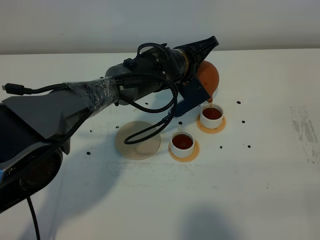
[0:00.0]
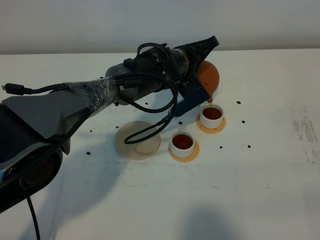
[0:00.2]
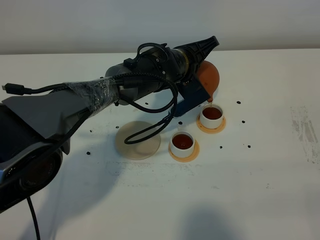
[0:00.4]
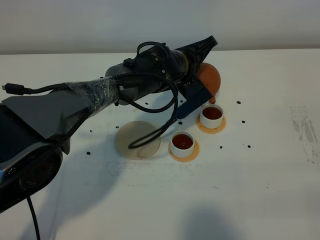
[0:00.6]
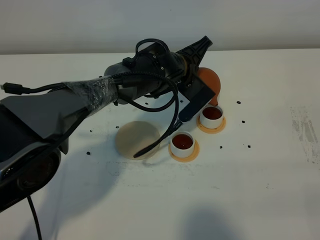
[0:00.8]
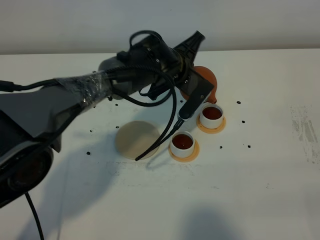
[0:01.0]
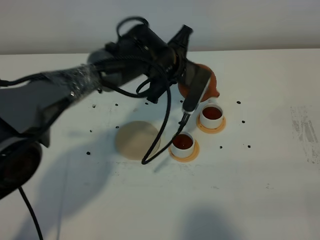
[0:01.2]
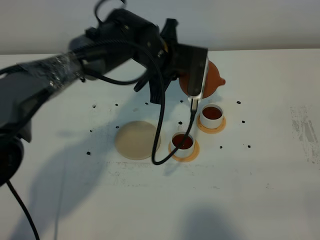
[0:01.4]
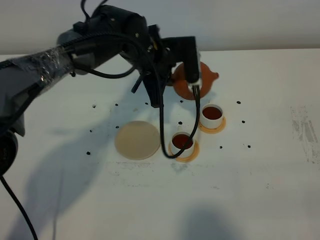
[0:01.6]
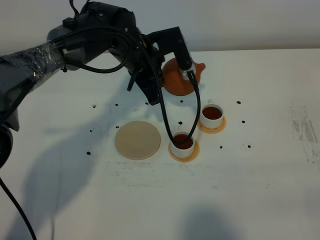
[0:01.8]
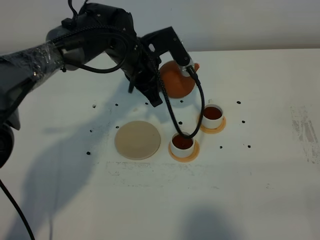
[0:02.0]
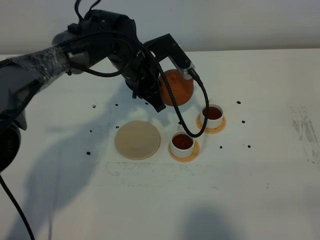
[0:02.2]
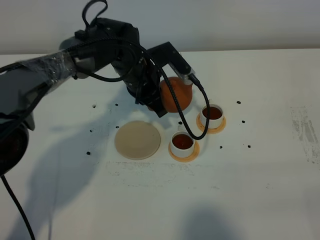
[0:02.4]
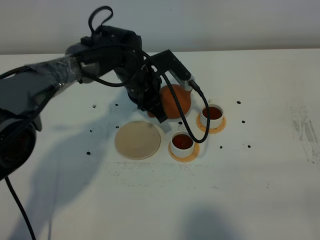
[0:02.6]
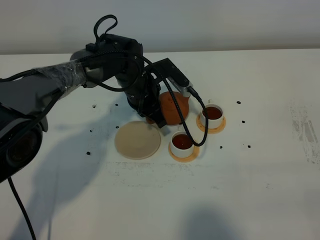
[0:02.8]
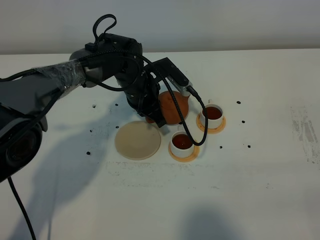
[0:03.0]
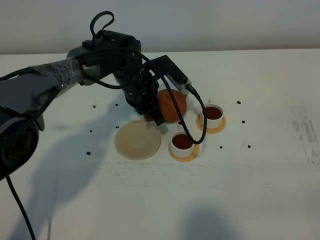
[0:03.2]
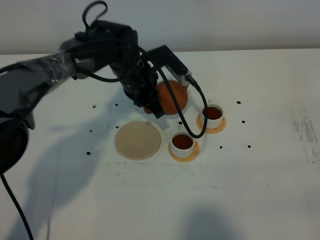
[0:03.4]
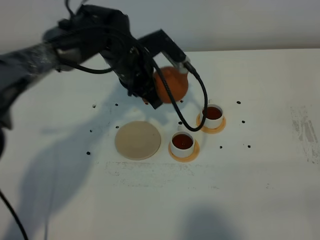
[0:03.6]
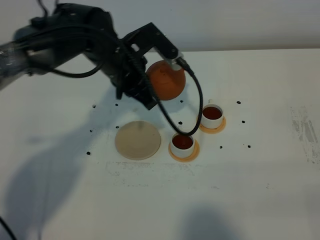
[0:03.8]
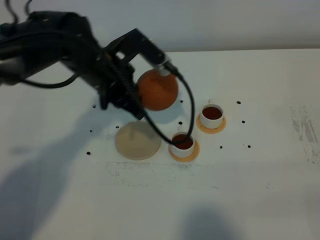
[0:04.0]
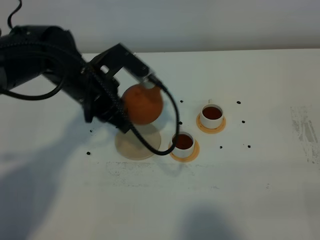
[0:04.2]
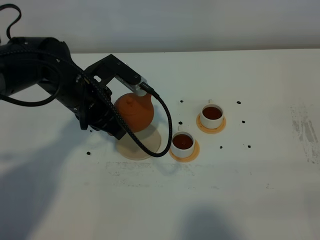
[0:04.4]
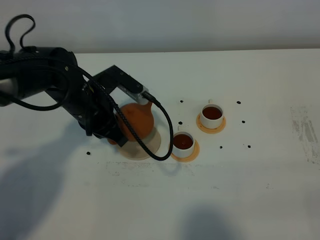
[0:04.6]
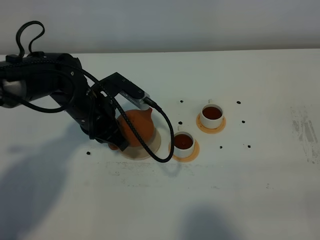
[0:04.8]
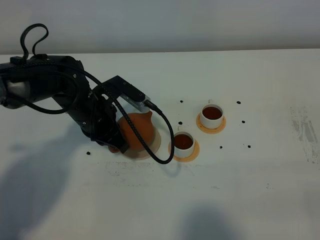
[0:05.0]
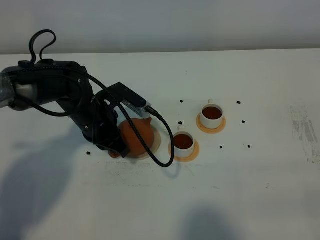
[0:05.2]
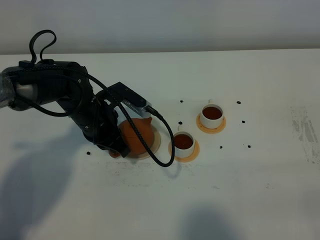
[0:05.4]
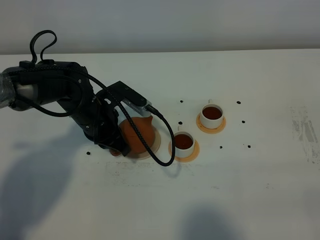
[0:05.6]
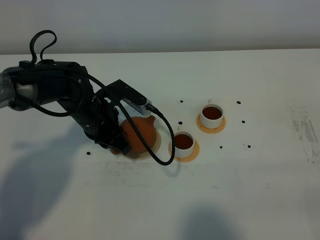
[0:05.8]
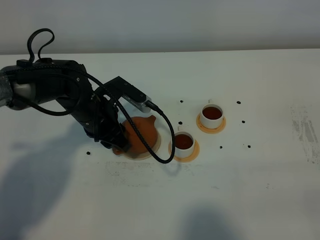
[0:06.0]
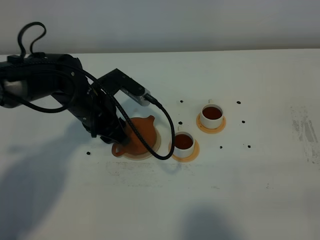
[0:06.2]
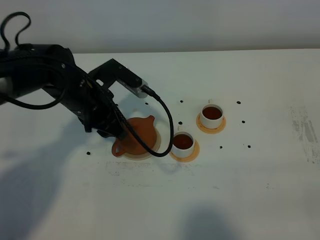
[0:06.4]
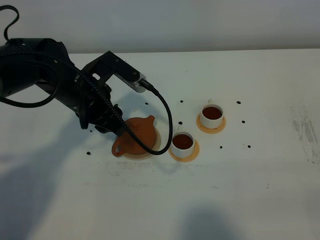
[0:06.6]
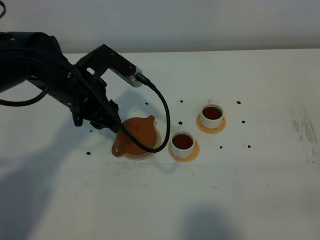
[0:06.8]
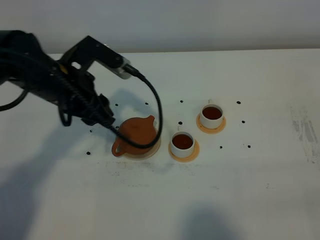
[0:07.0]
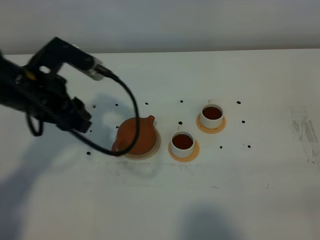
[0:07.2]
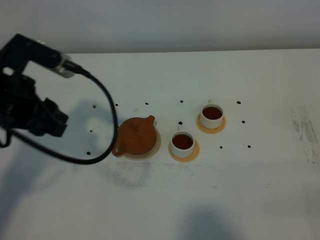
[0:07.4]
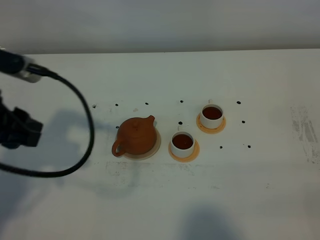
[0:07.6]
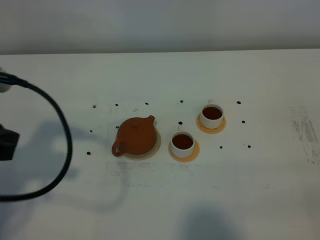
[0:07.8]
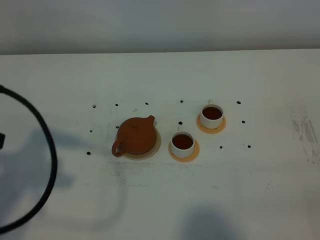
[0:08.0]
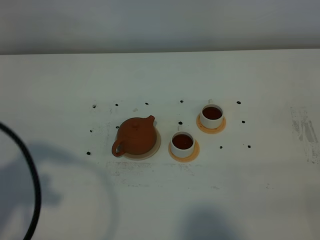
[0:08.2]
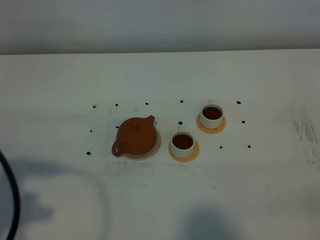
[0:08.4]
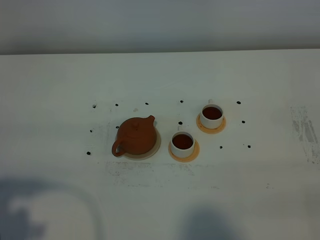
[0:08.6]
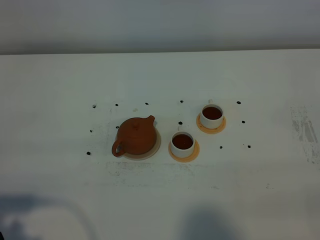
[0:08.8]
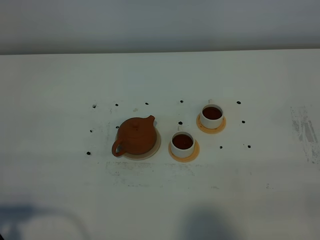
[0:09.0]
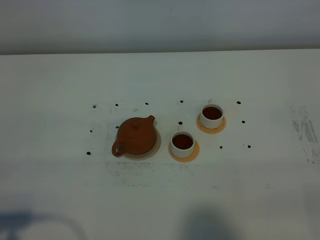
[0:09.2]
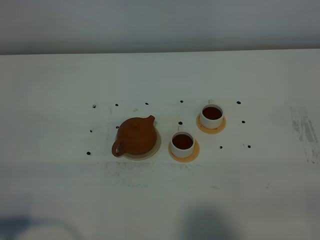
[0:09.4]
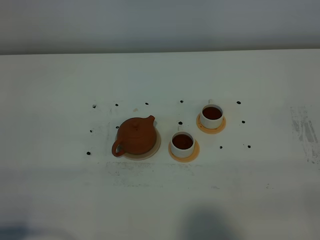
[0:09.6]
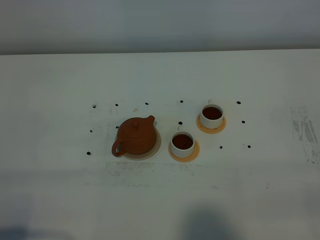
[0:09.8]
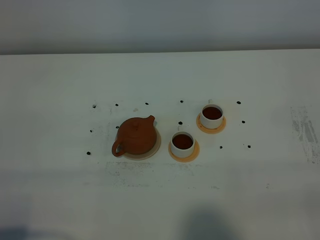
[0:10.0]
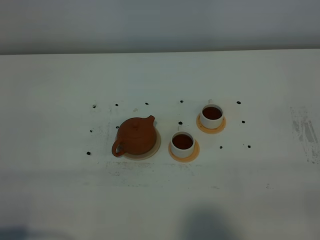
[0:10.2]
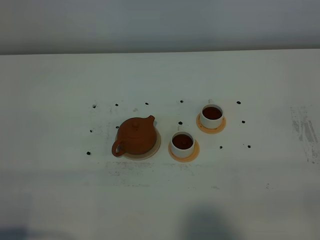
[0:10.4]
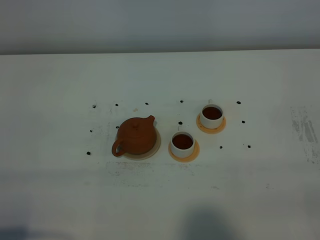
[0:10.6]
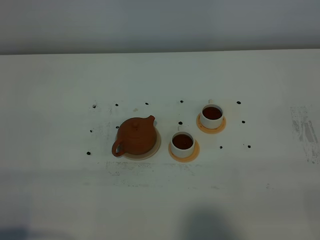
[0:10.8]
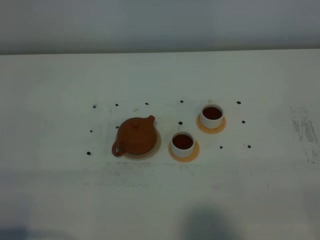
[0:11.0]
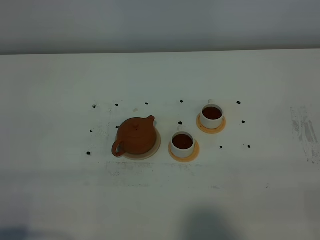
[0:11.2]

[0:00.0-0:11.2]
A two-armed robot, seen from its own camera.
Task of the whole recording: grasp the brown teapot and pour the tea into the two white teacups one by one, put the brown teapot back in its original place.
0:00.0 to 0:01.6: The left gripper shifts about 5 cm to the left.
0:01.6 to 0:03.2: The left gripper goes some 5 cm downward.
0:03.2 to 0:04.8: The left gripper goes some 10 cm backward and to the left, and goes upward and returns, roughly 10 cm each way.
0:04.8 to 0:06.4: The left gripper opens.
0:06.4 to 0:08.0: The left gripper travels backward, upward and to the left by some 25 cm.
0:08.0 to 0:09.6: The left gripper moves backward and downward, some 15 cm.
0:09.6 to 0:11.2: Neither gripper changes place.

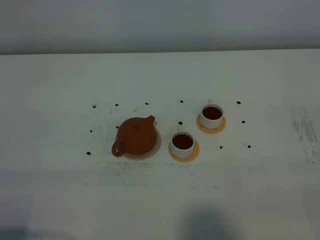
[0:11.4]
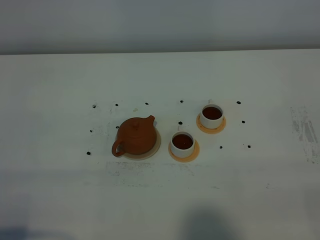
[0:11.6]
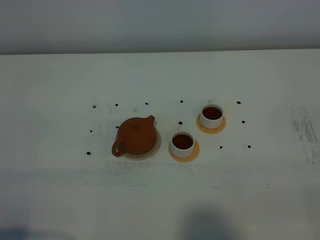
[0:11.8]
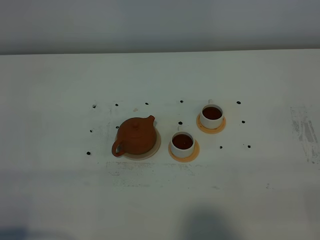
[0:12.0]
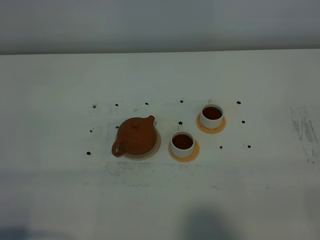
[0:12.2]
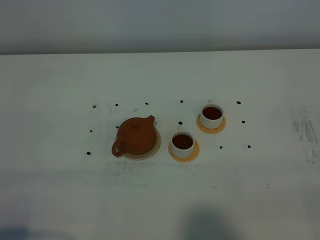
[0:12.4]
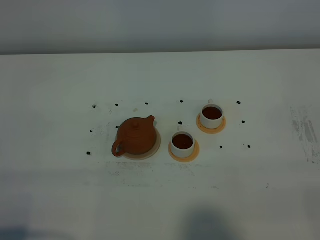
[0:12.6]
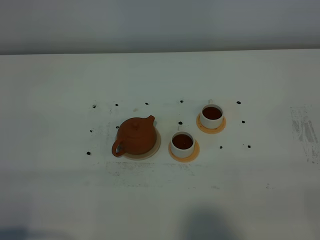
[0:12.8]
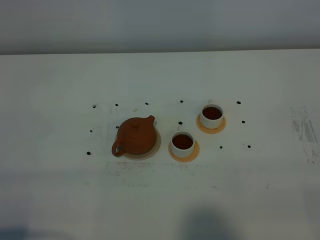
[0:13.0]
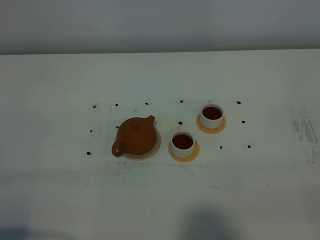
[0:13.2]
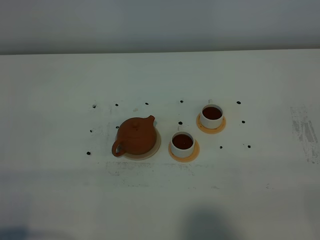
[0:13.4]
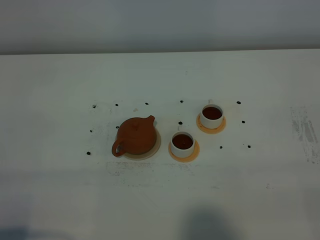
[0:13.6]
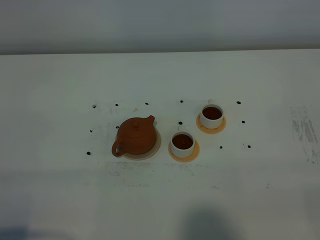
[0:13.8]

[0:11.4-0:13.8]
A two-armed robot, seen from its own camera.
Task of the whole recording: grasp the brown teapot and pour the tea into the two white teacups one by one, put the brown teapot back in its original place.
0:11.4 to 0:13.8: Both grippers stay about where they are.

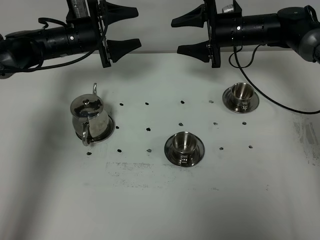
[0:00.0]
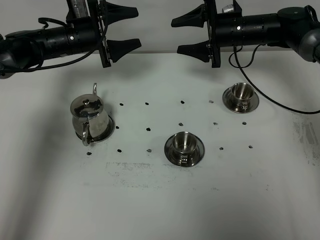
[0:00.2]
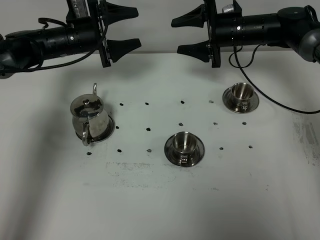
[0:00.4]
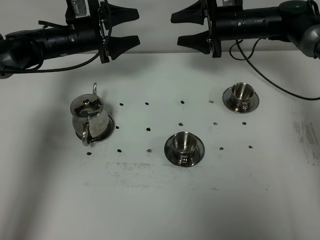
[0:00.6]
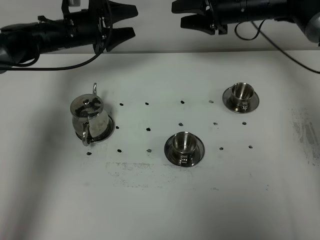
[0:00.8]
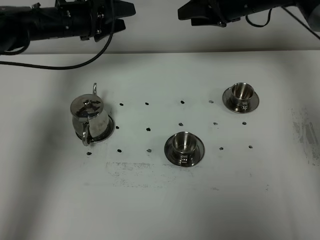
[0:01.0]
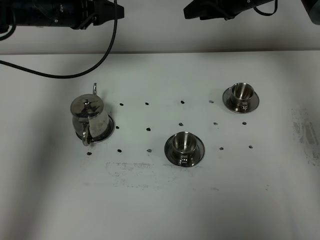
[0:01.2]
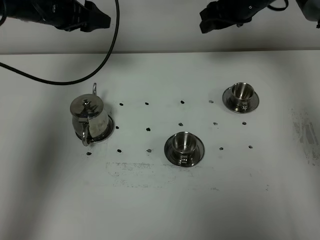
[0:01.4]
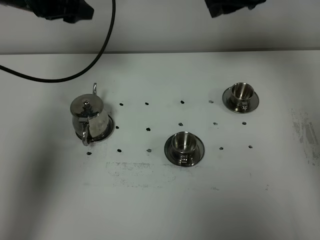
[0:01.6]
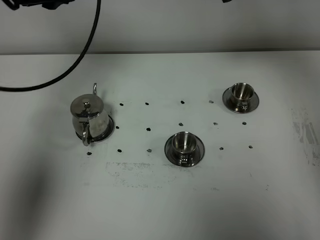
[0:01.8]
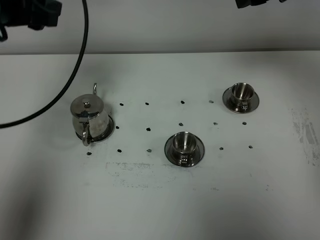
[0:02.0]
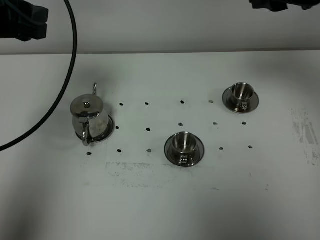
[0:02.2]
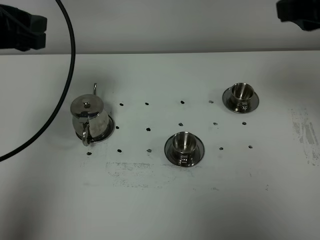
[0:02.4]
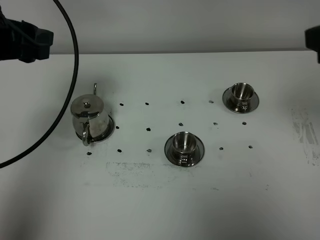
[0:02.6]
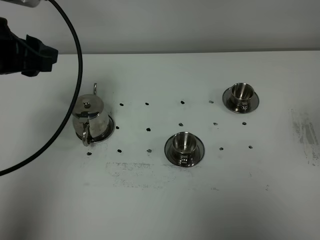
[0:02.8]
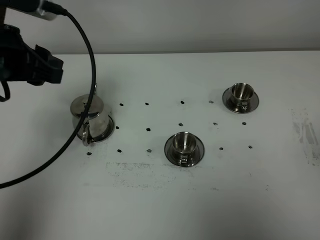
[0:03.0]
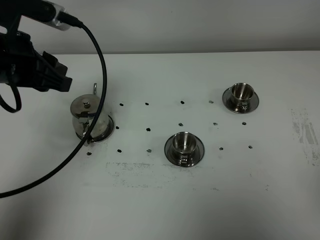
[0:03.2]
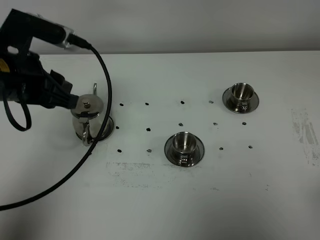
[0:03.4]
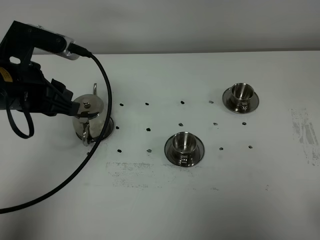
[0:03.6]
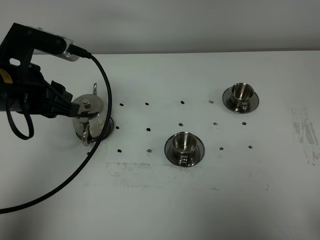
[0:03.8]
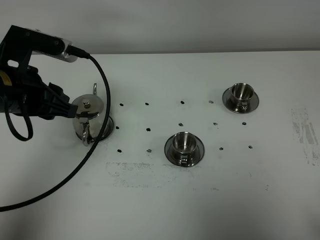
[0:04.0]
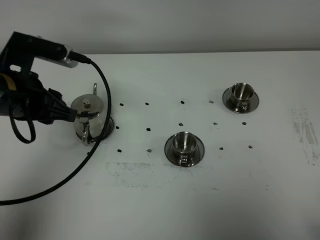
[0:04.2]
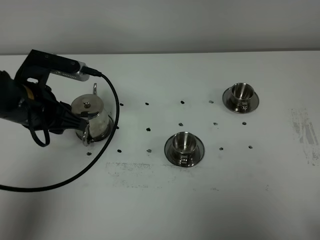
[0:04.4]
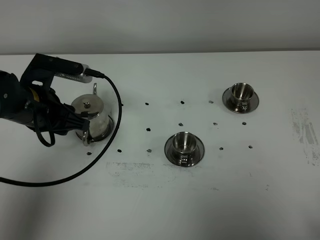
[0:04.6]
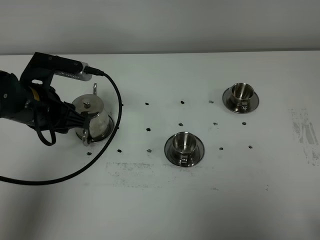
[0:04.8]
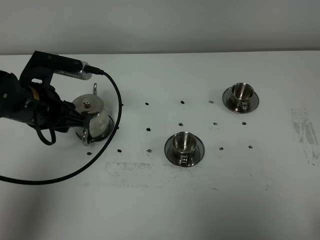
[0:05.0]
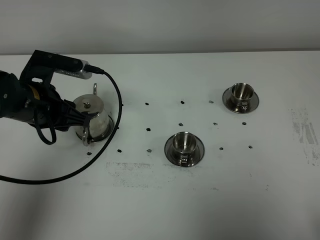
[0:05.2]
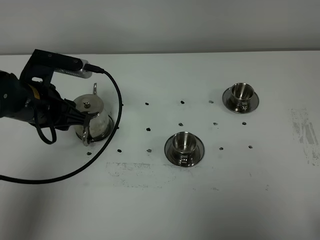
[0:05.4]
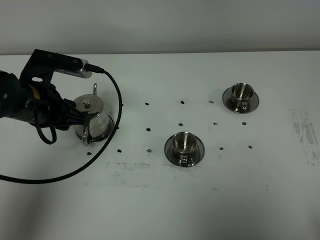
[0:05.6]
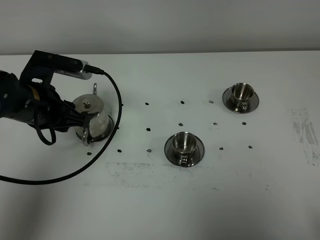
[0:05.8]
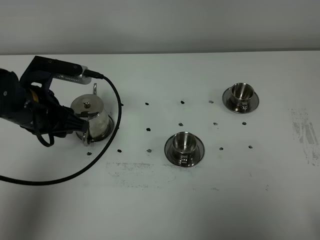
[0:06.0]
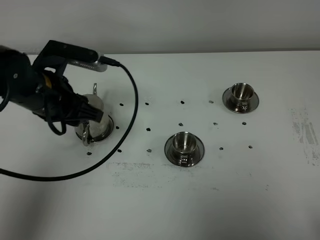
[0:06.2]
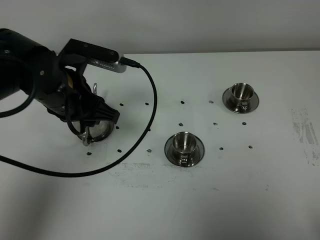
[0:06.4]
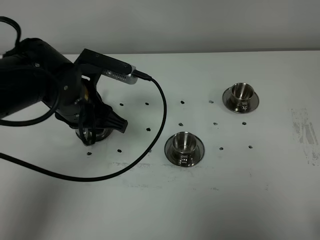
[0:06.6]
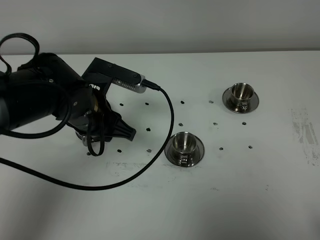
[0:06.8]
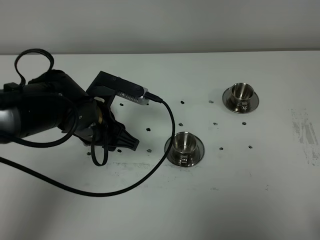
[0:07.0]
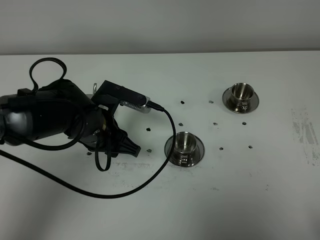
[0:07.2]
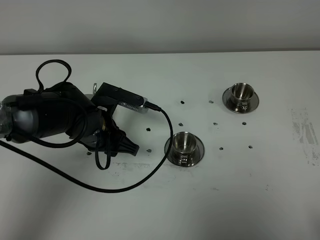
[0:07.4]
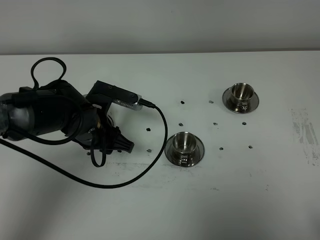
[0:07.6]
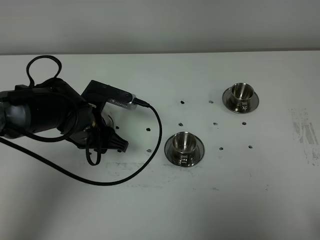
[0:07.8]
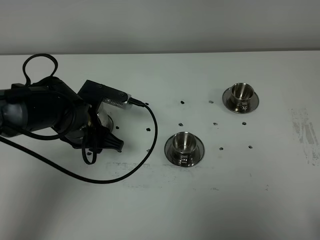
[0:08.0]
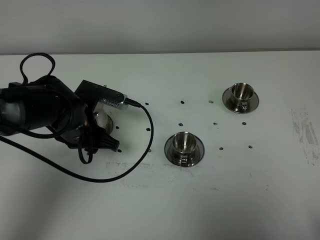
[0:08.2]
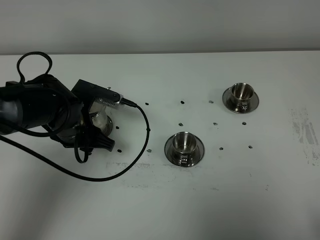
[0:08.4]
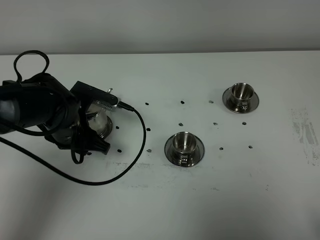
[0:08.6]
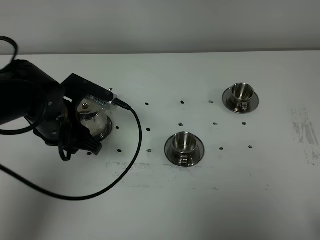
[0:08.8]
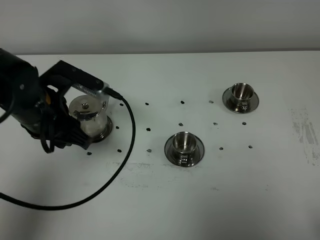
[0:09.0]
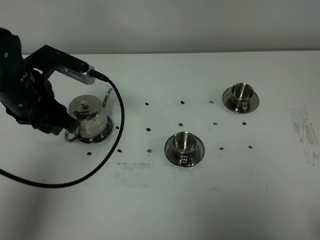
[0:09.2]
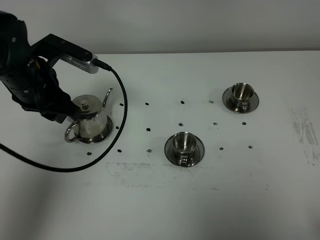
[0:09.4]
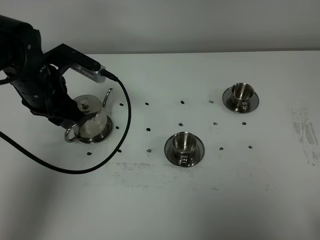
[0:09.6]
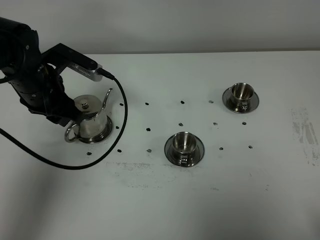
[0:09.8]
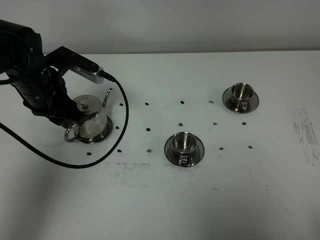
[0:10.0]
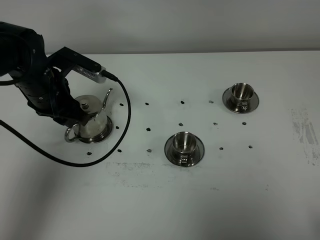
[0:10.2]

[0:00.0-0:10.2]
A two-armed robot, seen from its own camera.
Task of the whole recording: grasp the stainless steel teapot and pour the tea into the two stainless steel teacups one by one, put the stainless steel teapot back in its original place.
0:00.0 to 0:01.4: The two grippers go some 10 cm upward.
0:01.4 to 0:03.0: The right gripper shifts approximately 40 cm backward, while the left gripper is displaced backward by approximately 20 cm, and closes.
0:03.0 to 0:04.4: The right gripper goes some 15 cm downward and backward. The left gripper heads downward, covering some 10 cm.
0:04.4 to 0:05.8: The grippers move only a little.
0:05.8 to 0:07.2: The left gripper heads to the right and downward, covering about 10 cm.
0:07.2 to 0:08.8: The left gripper shifts approximately 5 cm to the left.
0:08.8 to 0:10.2: The left gripper shifts about 5 cm forward.
